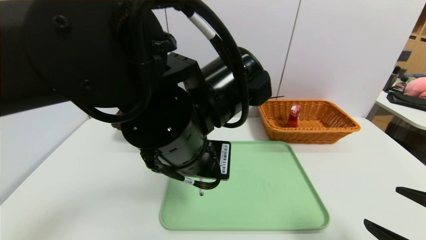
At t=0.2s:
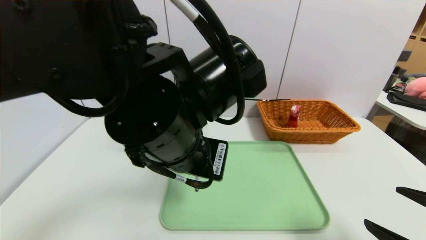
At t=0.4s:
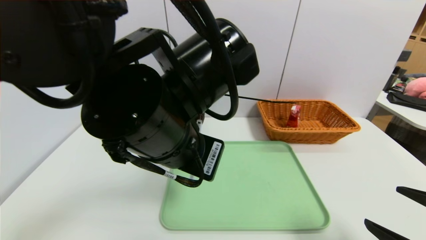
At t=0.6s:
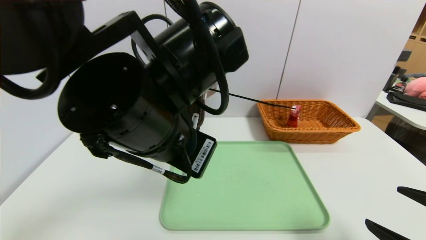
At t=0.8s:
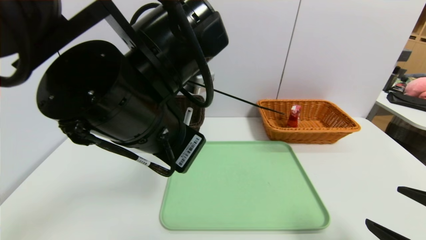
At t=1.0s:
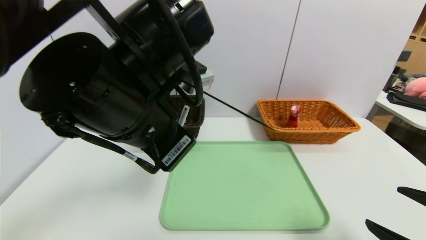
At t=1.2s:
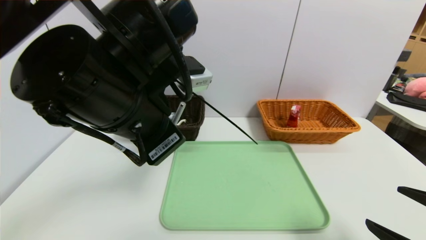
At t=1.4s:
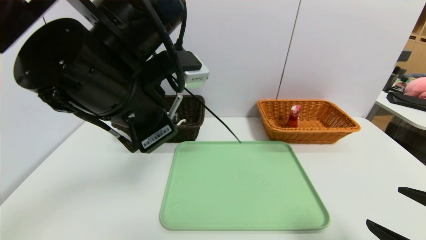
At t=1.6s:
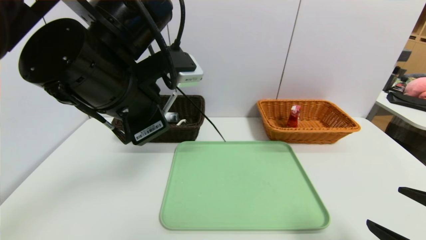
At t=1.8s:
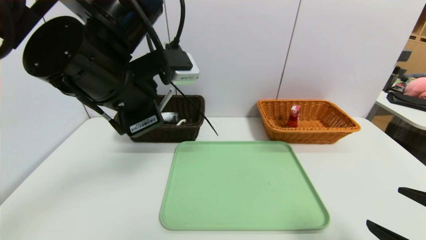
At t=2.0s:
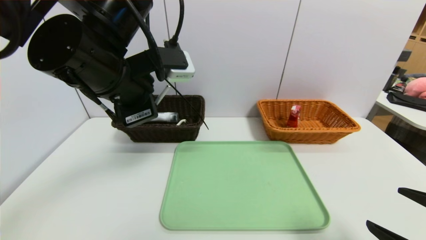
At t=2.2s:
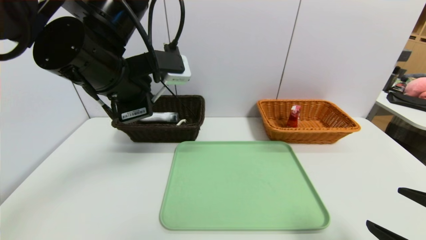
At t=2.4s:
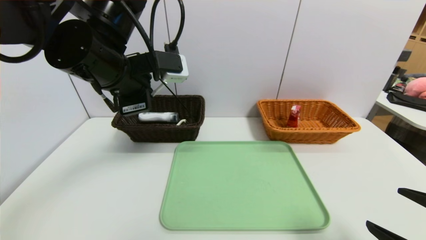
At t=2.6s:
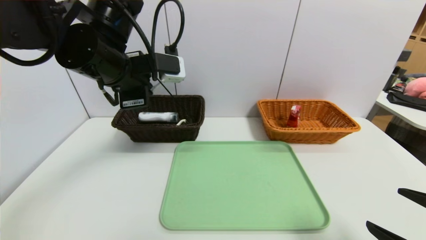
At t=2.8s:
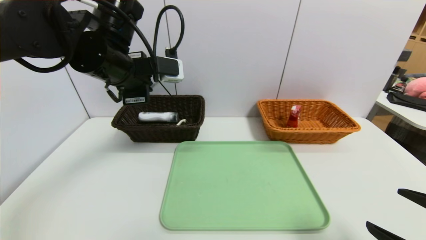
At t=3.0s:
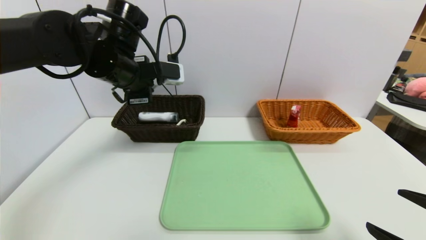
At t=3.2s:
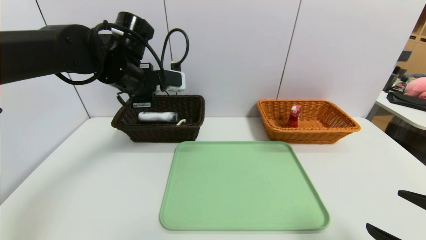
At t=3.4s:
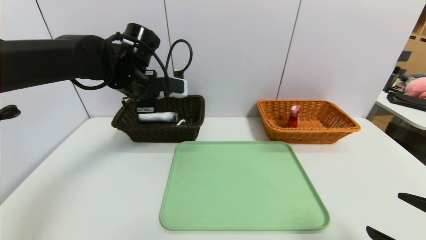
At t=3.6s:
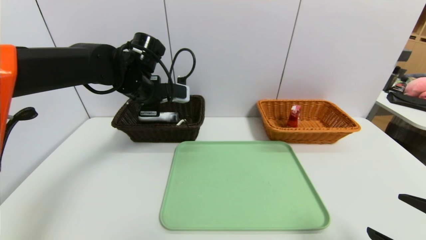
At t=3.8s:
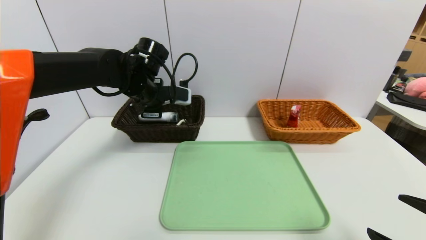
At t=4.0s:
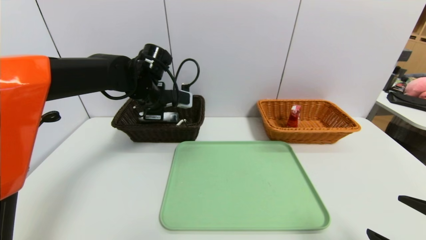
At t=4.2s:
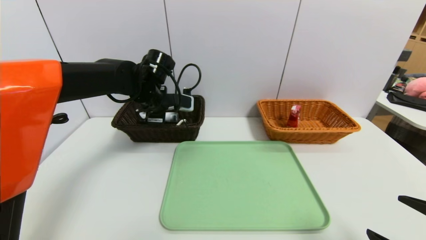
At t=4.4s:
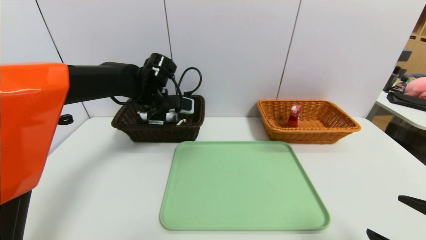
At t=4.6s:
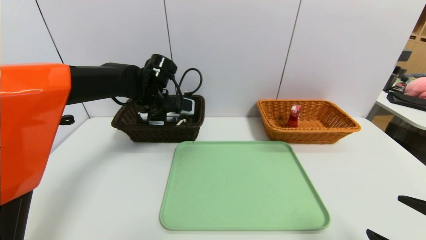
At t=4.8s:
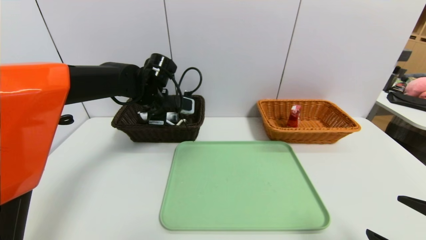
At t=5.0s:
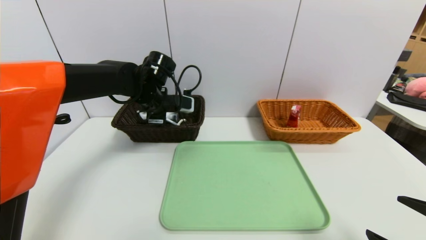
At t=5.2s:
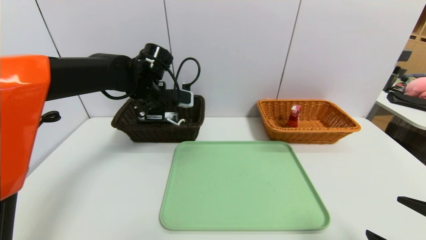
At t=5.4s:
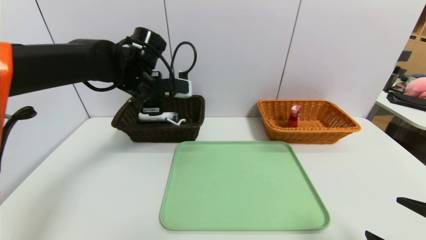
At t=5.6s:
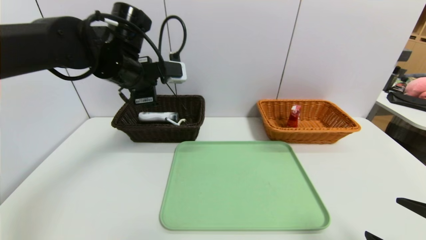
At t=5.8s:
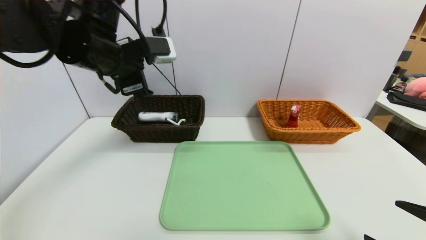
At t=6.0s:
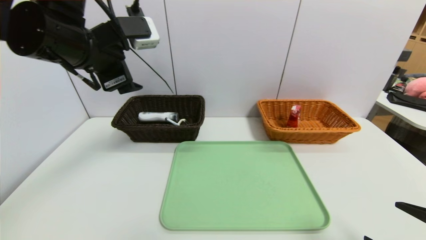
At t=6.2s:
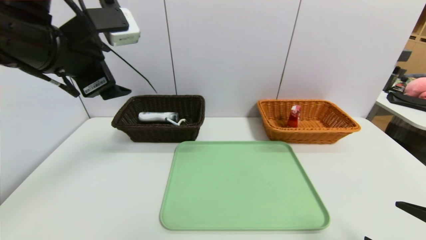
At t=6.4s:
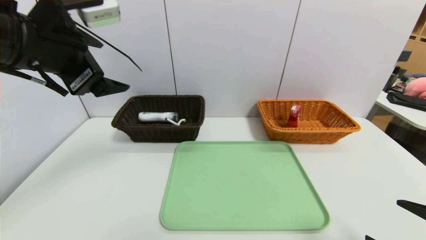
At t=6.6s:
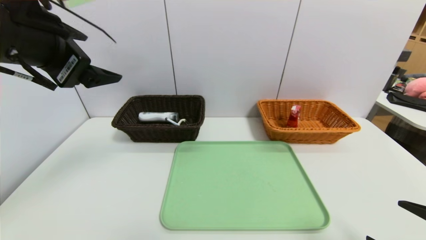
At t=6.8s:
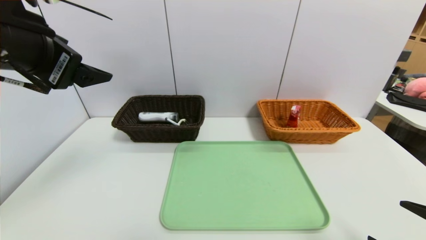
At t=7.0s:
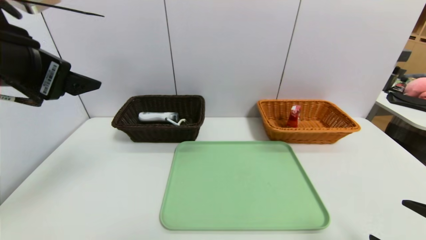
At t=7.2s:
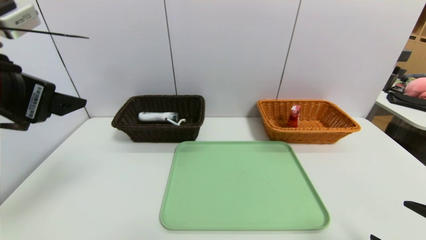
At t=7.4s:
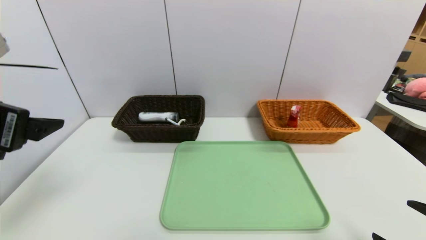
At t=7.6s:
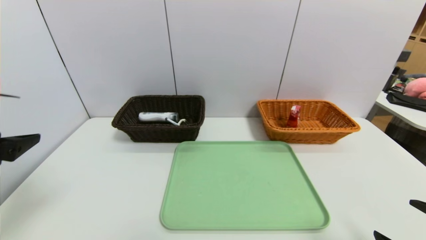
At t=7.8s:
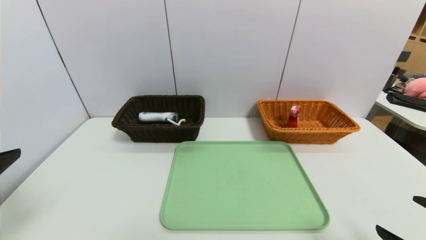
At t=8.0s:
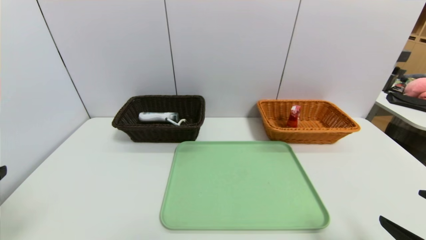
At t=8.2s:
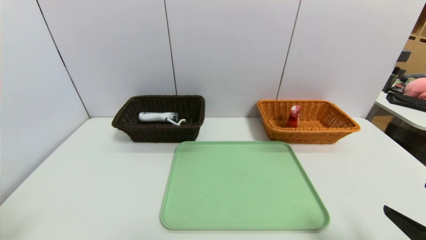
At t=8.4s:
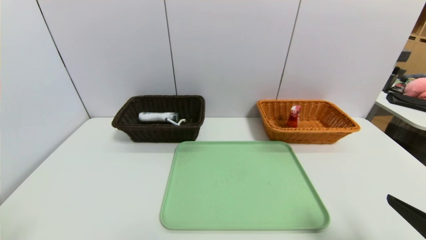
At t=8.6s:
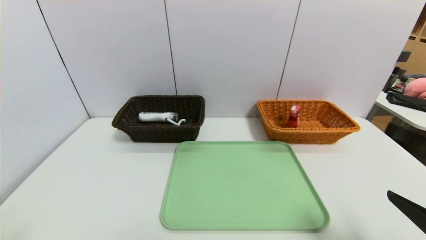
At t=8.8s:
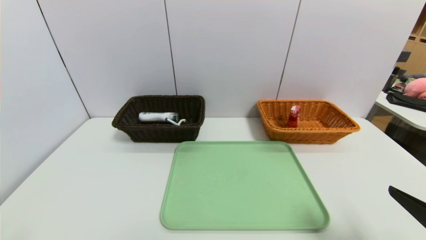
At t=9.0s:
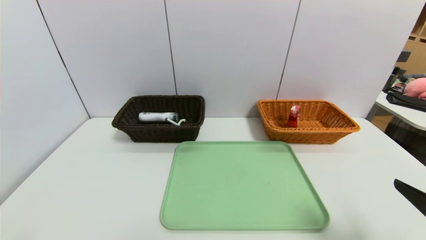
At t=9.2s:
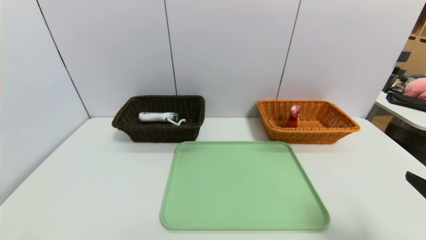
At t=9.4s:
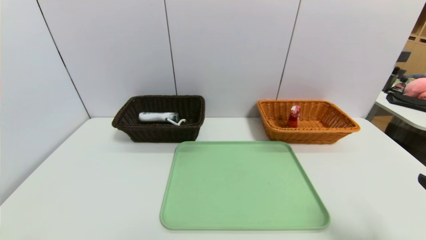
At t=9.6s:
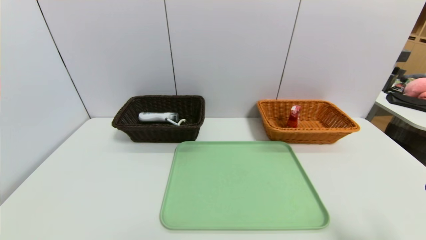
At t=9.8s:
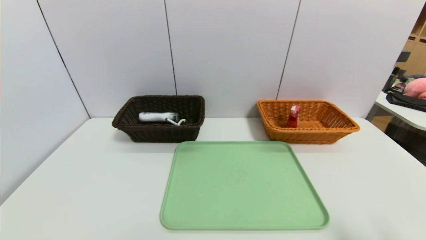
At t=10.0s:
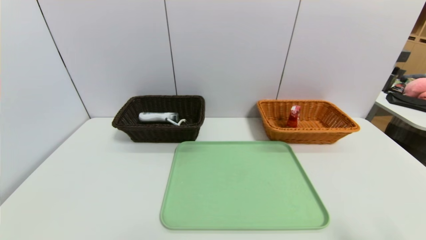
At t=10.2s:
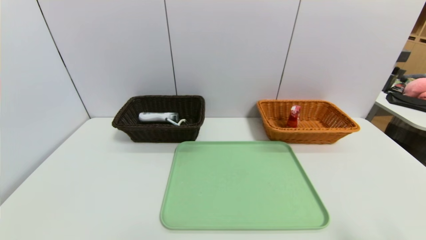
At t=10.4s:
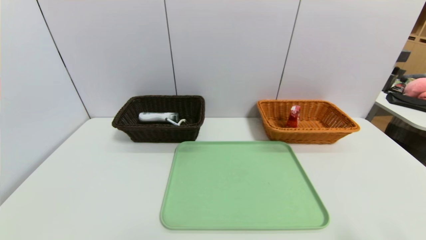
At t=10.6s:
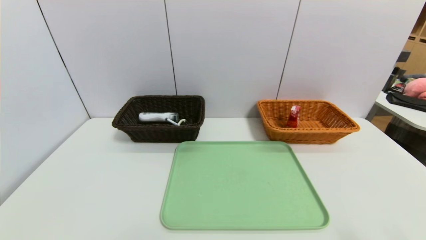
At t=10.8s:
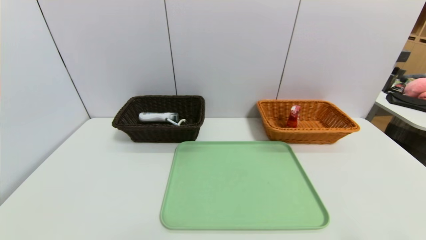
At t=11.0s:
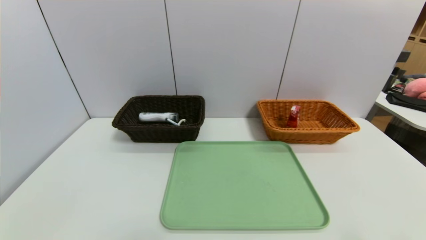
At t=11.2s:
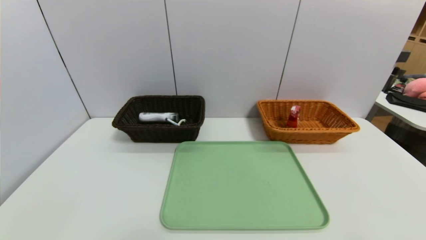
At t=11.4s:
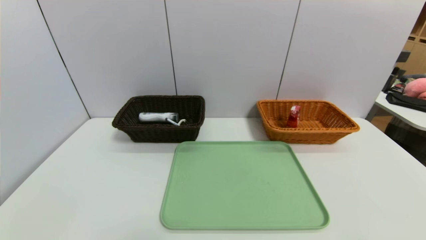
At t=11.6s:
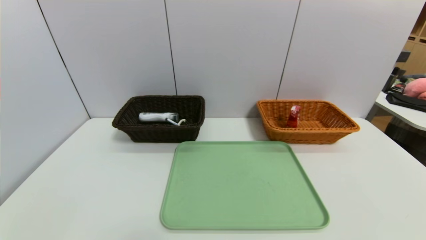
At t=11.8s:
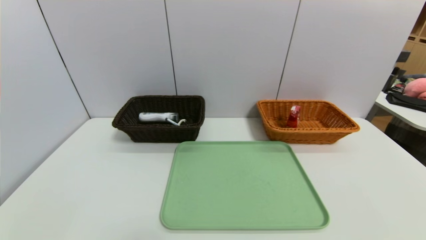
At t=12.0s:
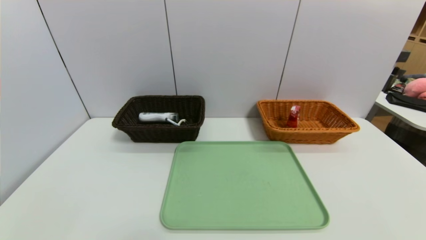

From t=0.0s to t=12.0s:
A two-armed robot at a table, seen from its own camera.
Task of the whole recording: place the food in the right basket with the right gripper, and place the non food items in the left basket with the left gripper.
Step, from t=0.0s to t=5.8s: Grasp the ballpoint pen and put it in the left basket.
From t=0.0s to t=1.6s: The left gripper moves to the left, some 10 cm.
From t=1.6s to t=3.0s: The left gripper shifts roughly 15 cm forward.
From t=3.0s to t=4.4s: The left gripper travels downward and forward by about 10 cm.
From t=4.4s to t=6.0s: The left gripper shifts some 20 cm upward and backward, and opens up.
From t=6.0s to t=7.6s: The left gripper goes approximately 20 cm backward and to the left.
From t=7.6s to t=9.0s: The left gripper is displaced backward and downward by some 15 cm.
From t=9.0s to t=10.4s: The right gripper changes place by approximately 5 cm.

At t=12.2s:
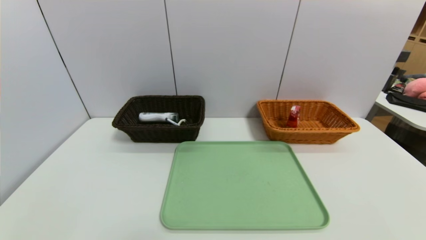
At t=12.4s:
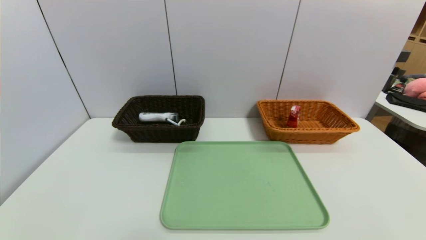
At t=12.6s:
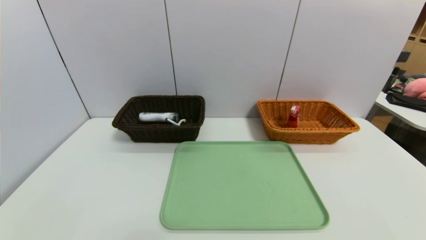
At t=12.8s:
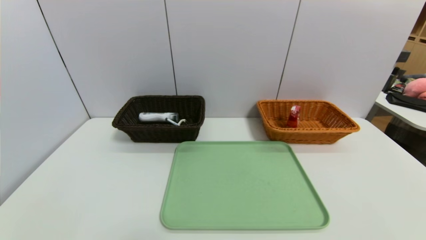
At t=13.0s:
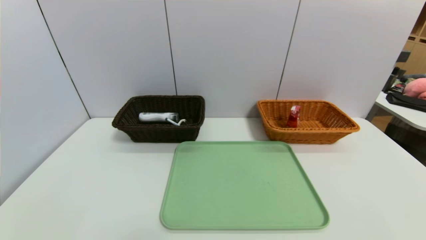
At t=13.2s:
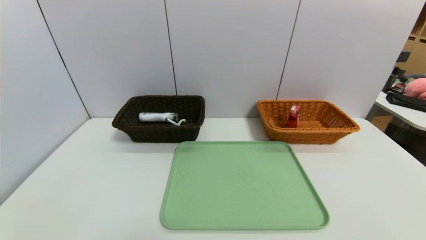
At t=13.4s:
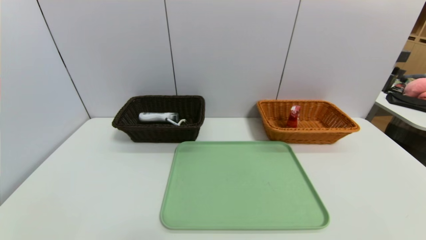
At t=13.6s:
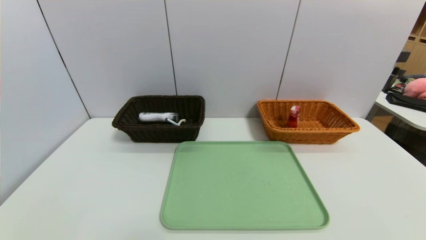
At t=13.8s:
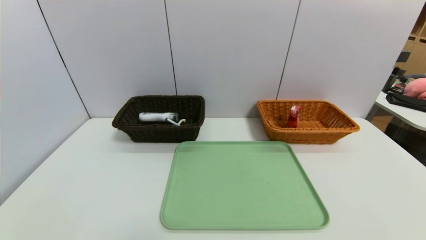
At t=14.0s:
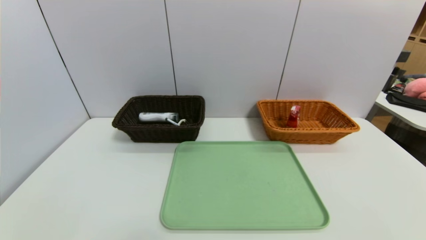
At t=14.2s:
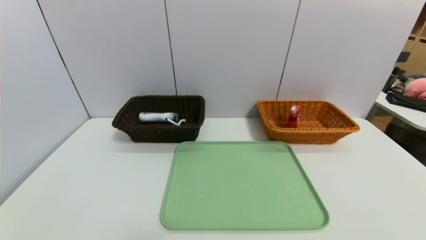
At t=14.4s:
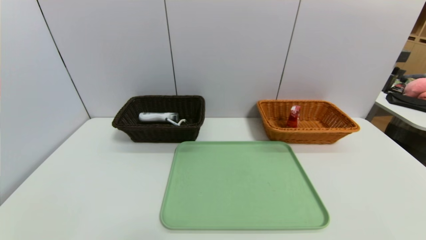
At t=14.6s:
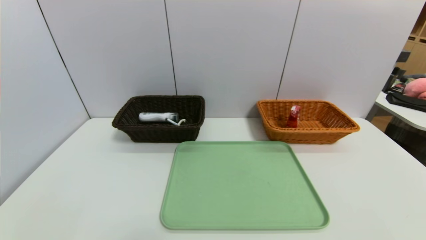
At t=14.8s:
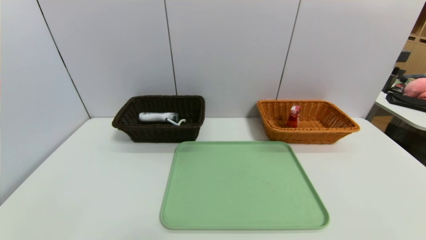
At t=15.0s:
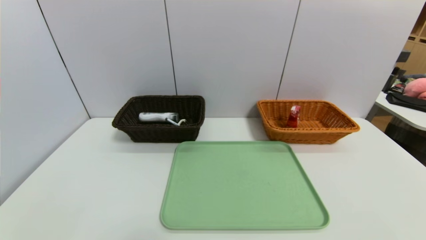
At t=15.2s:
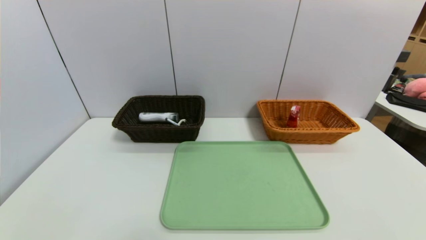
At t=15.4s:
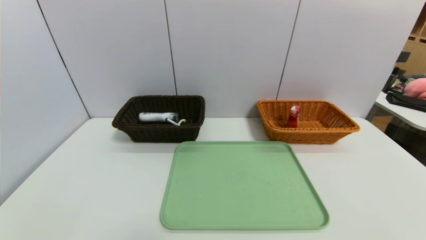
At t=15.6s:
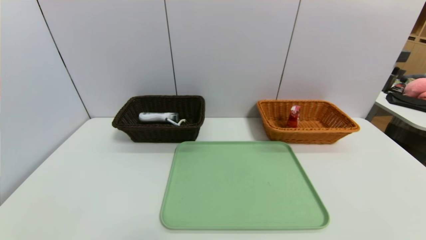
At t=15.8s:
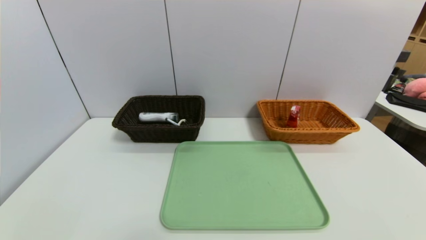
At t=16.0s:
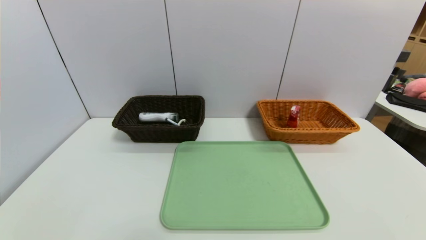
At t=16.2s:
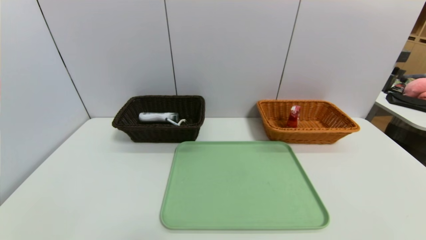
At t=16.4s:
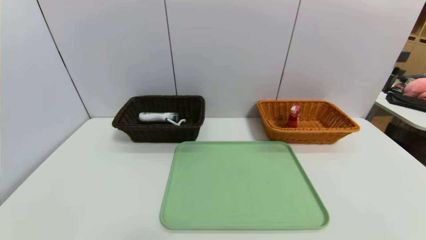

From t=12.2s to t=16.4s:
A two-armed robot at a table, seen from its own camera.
Task of the whole recording: place the food in the right basket with the right gripper, and place the non food items in the left basket with the left gripper.
From t=15.0s to t=16.4s: Neither gripper changes place.
